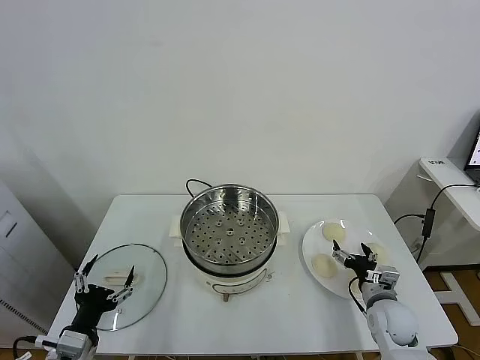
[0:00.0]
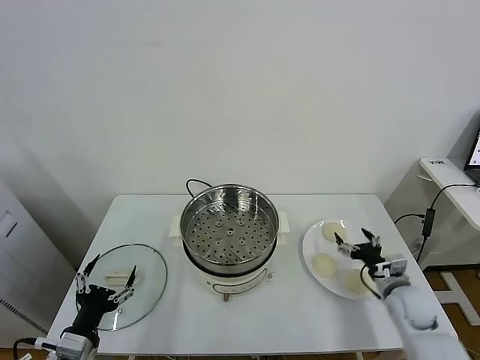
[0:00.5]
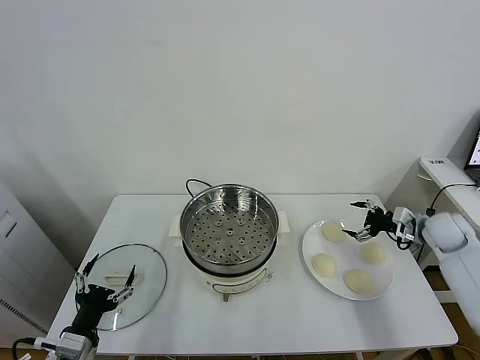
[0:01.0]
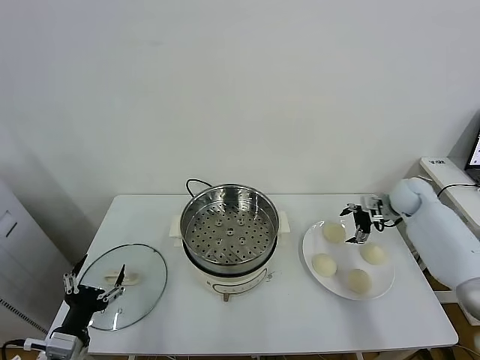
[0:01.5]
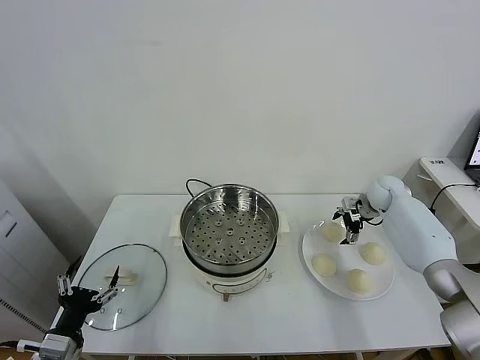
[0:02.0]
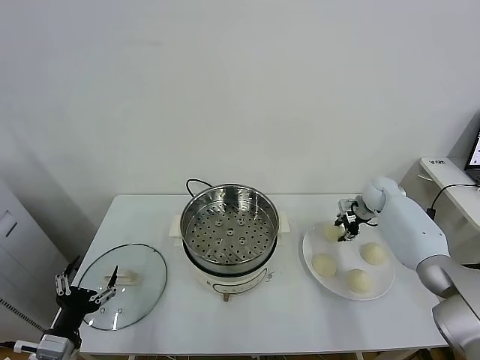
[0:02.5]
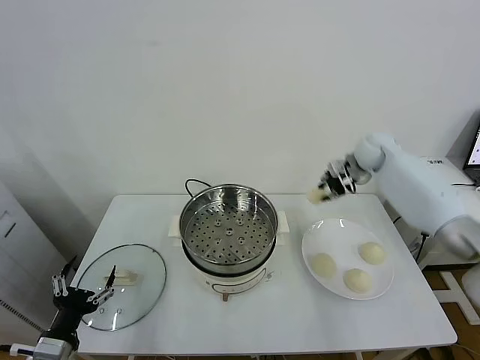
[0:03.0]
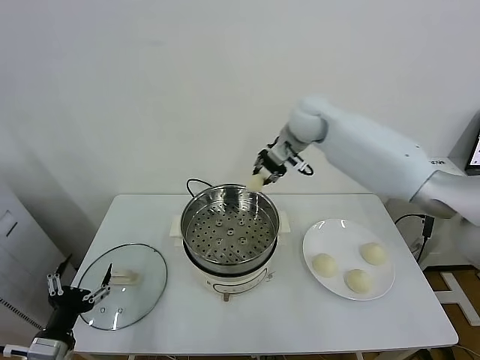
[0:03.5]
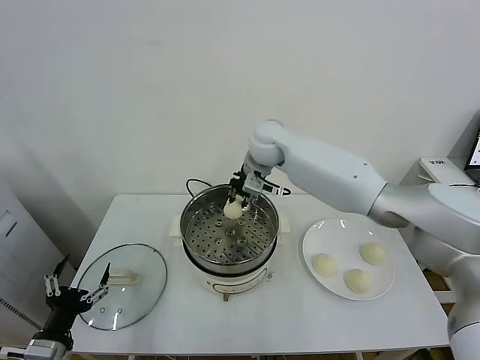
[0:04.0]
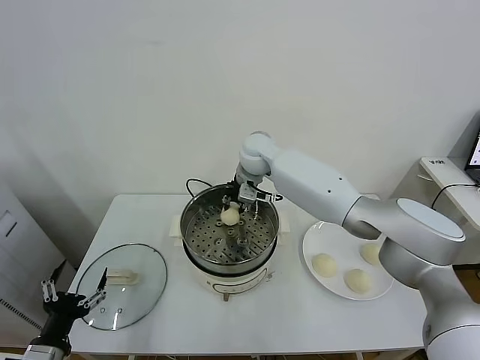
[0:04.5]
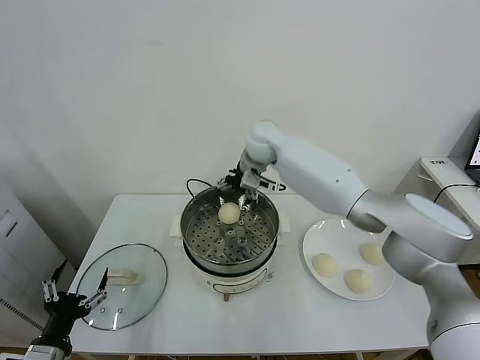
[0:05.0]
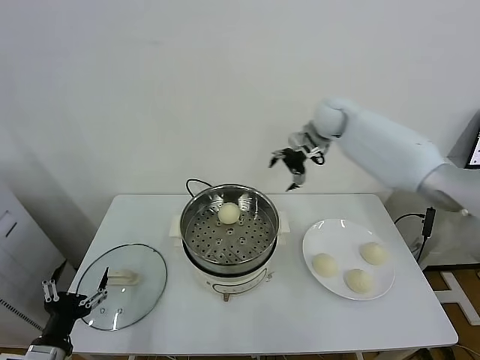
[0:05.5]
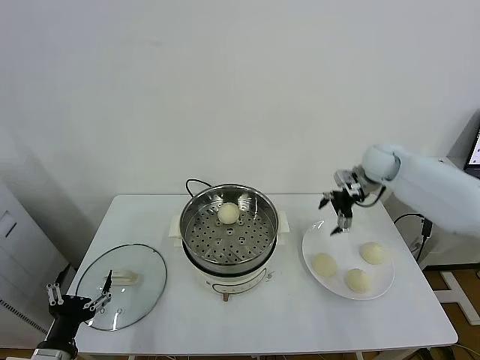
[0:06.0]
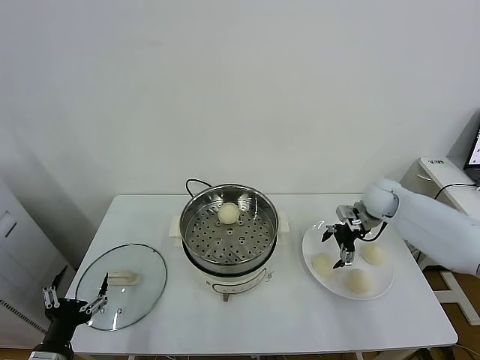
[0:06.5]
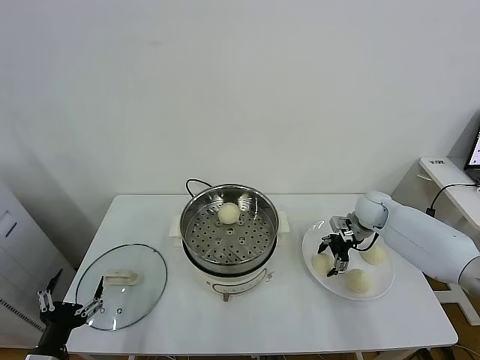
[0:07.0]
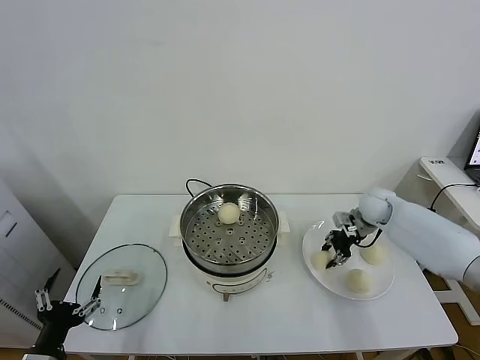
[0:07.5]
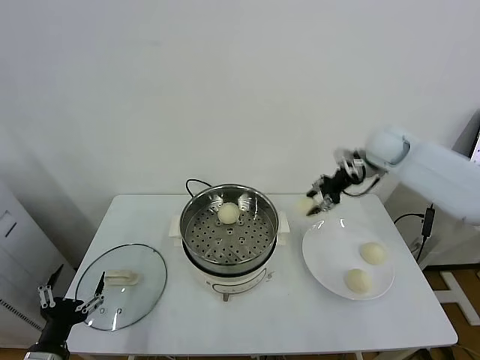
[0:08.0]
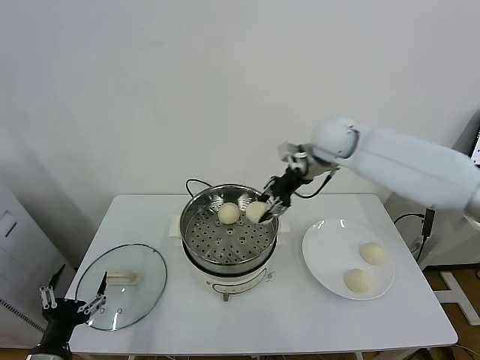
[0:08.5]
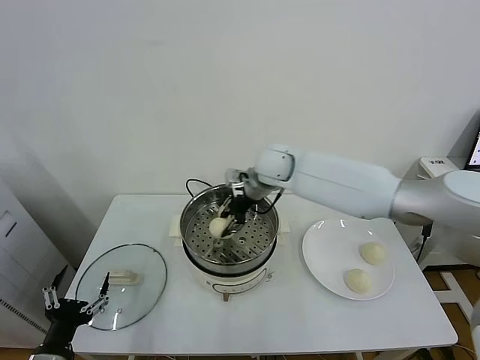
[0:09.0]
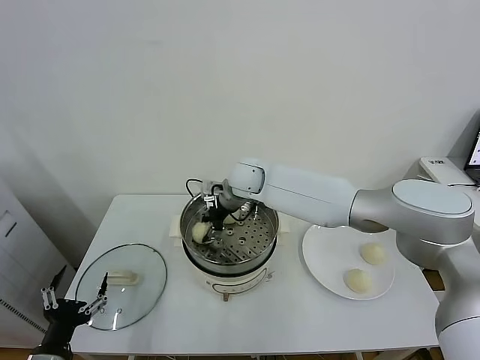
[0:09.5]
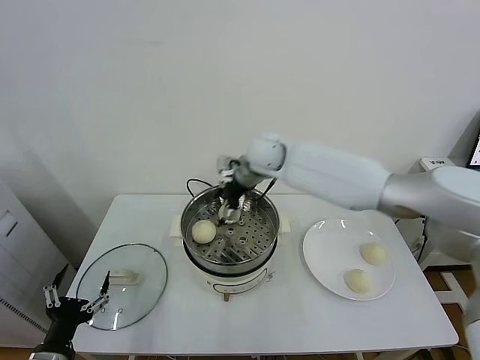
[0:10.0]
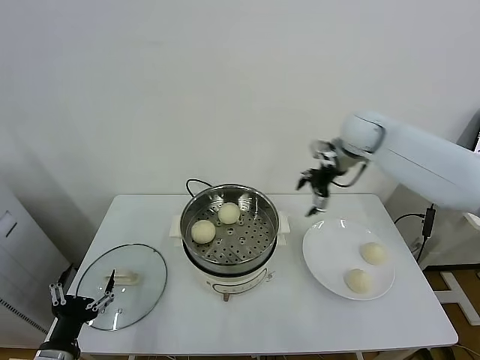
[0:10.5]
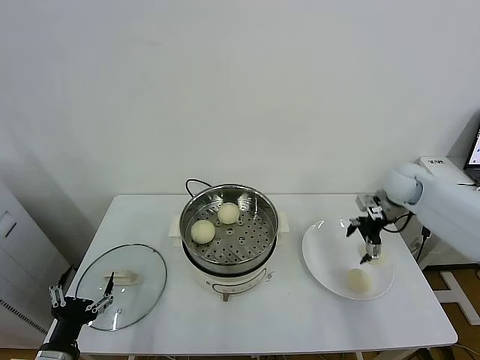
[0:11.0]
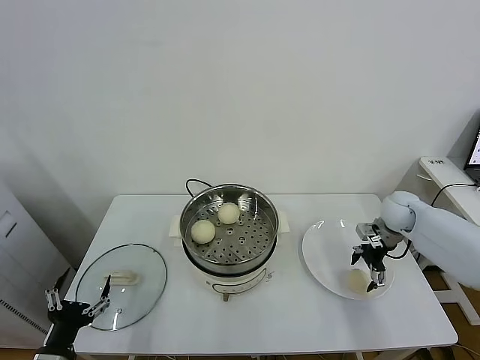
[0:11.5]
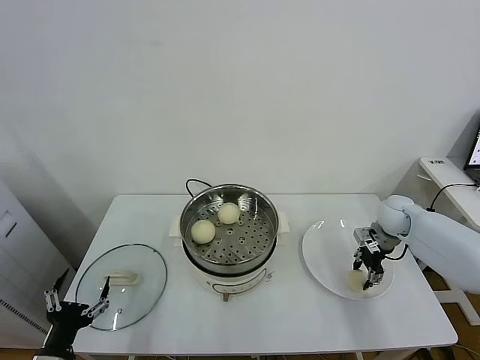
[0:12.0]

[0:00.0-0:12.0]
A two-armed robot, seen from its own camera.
Task of the whole recording: take steamed baozi put them in steamer.
Step, 0:00.0 to 0:02.0: Grasp the baozi in the plate with right gripper.
Step, 0:02.5 to 0:04.5: Place the baozi on the steamer with right gripper.
Step, 0:05.0 to 0:07.0: Grasp the baozi in the plate with right gripper.
Step, 0:07.5 to 0:09.5: Place the baozi on the steamer with right gripper.
Step, 0:10.0 to 0:11.5: Grasp the baozi in the plate with right gripper.
0:02.0 to 0:04.0: The right gripper travels to the left and upward by approximately 40 cm, and closes its fingers.
0:04.0 to 0:06.0: The right gripper moves to the right, some 30 cm, and opens.
0:06.0 to 0:08.0: The right gripper travels upward by roughly 10 cm, and closes up.
0:08.0 to 0:10.0: The right gripper shifts some 25 cm to the left, and opens its fingers.
0:10.0 to 0:12.0: The right gripper travels to the right and downward by about 35 cm, and closes its fingers.

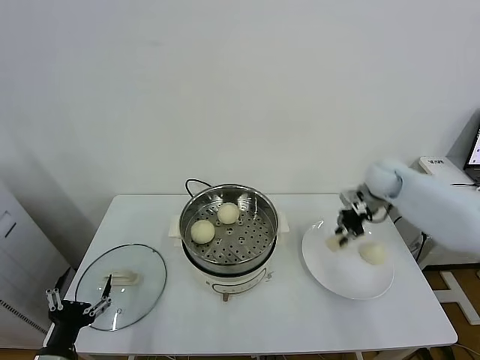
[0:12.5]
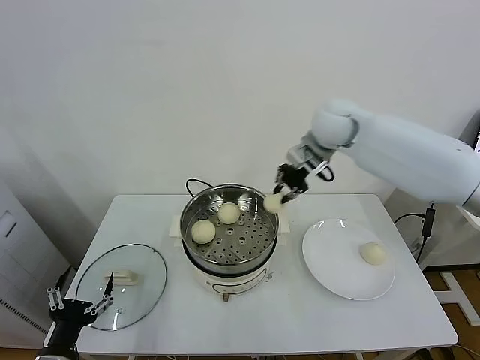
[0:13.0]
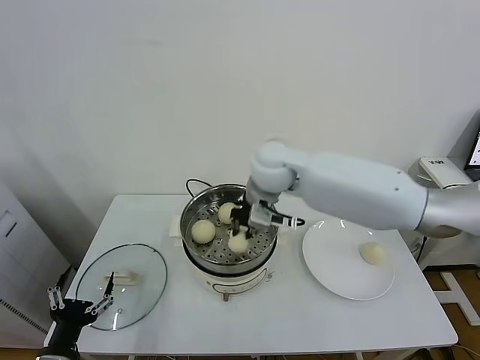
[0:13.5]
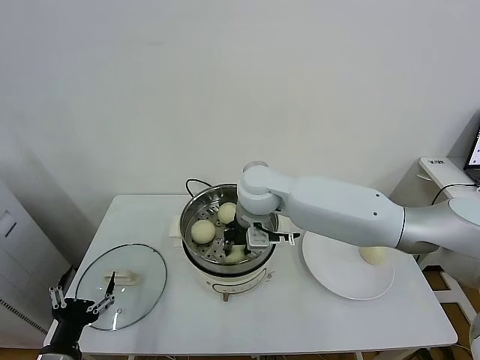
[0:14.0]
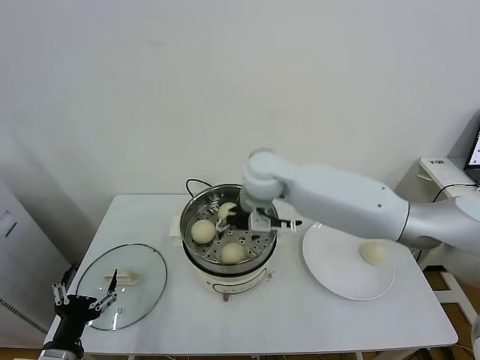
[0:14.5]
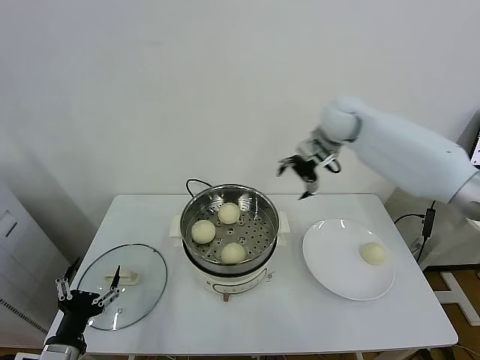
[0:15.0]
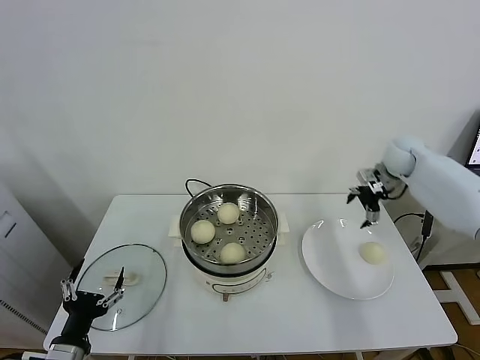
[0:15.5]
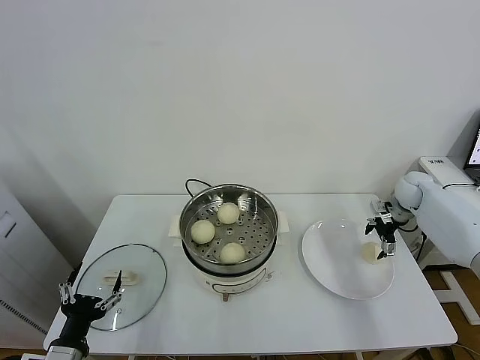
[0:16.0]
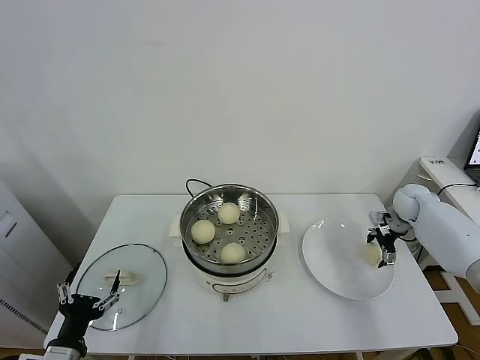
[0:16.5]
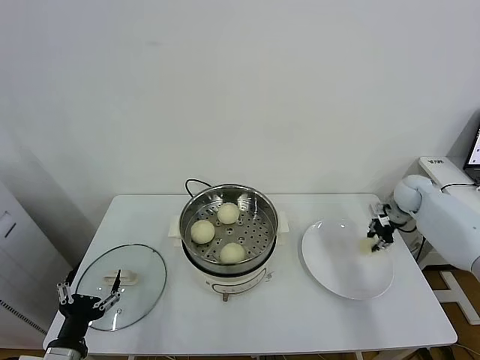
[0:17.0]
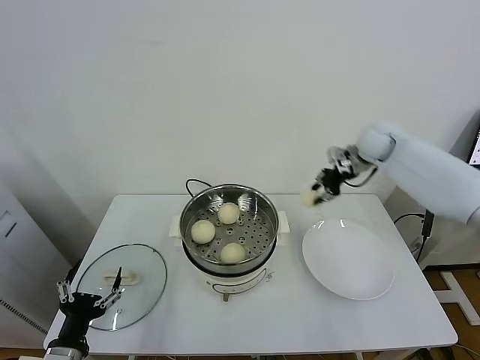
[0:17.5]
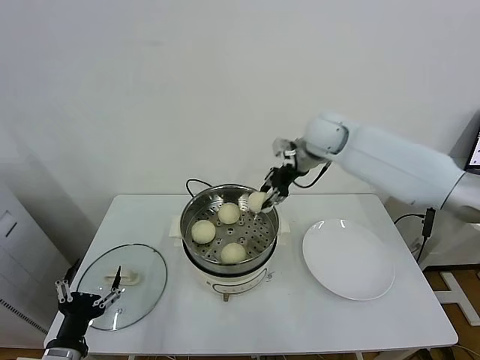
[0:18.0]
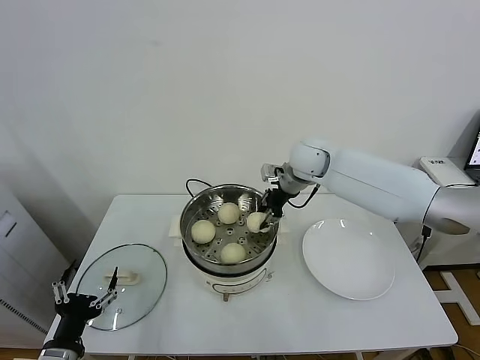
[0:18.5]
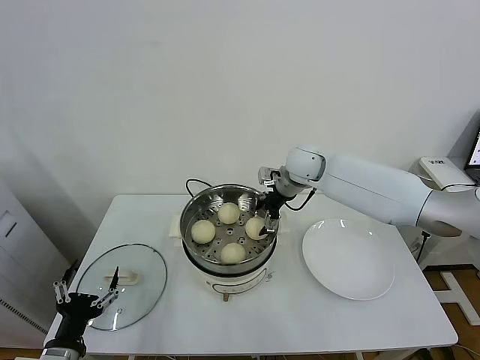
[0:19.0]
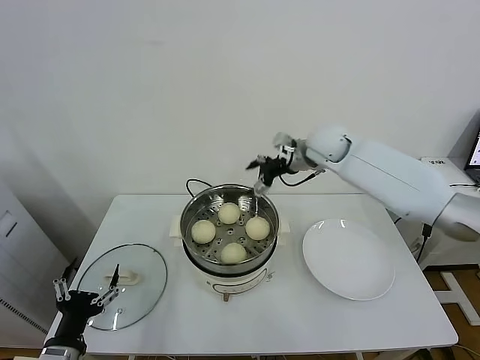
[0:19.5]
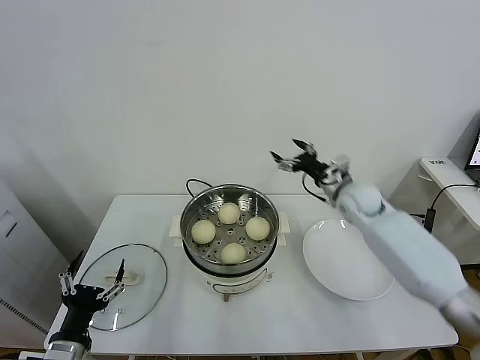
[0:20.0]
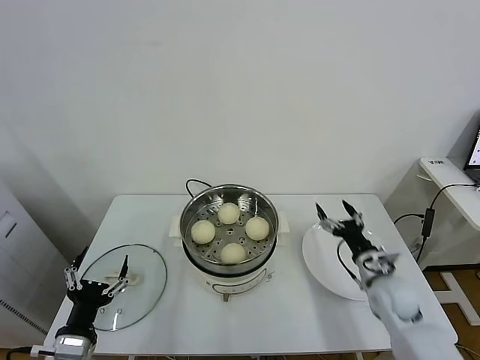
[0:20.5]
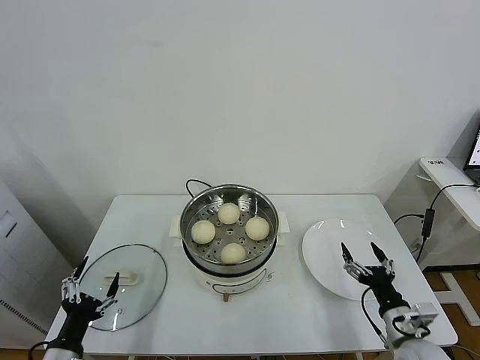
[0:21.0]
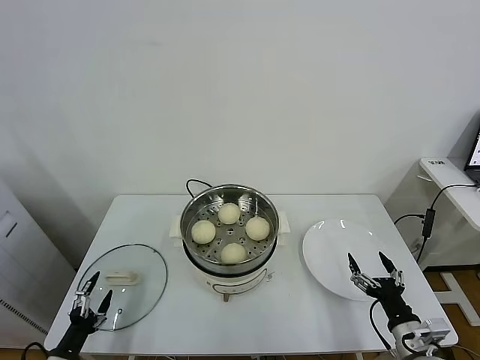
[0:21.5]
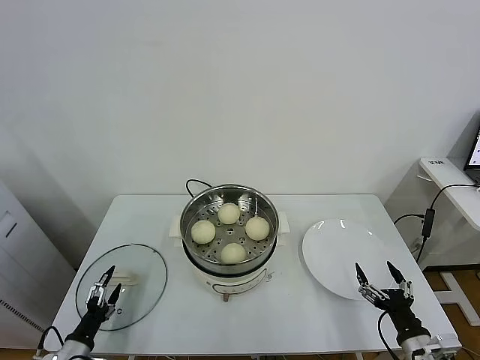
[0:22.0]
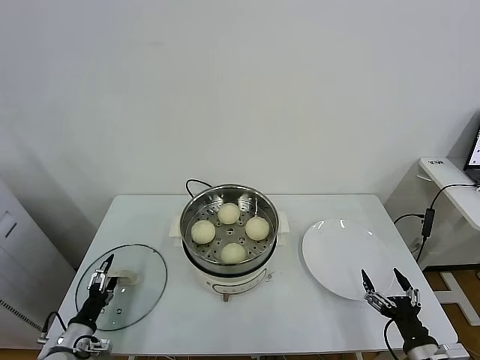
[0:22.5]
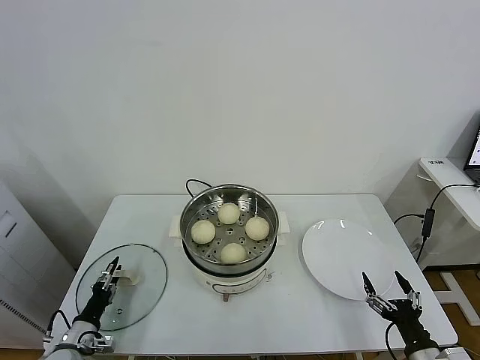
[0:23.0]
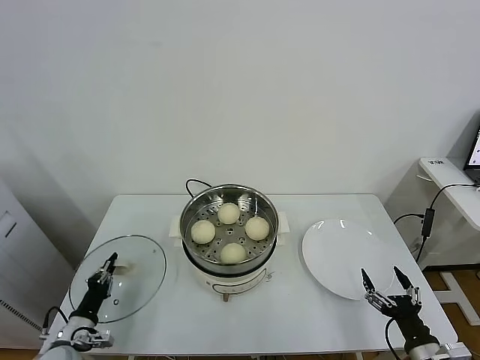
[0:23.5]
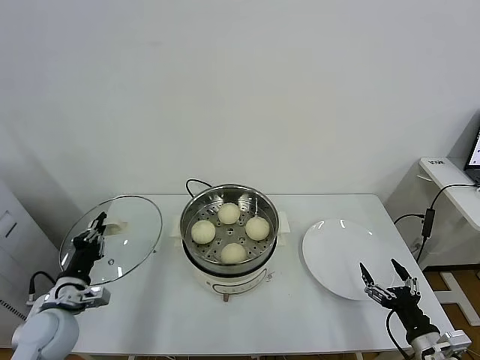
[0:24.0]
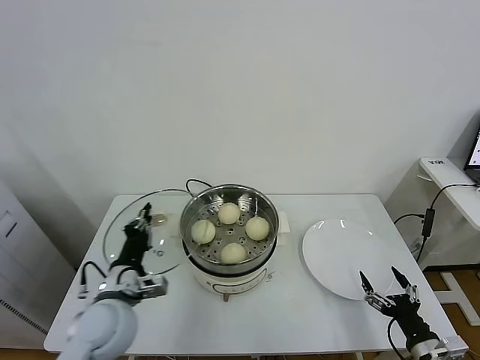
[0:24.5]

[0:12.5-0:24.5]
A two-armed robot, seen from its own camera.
Task of the whole recording: take steamed baozi put them in steamer.
Step, 0:12.5 to 0:14.0: Place the baozi on the steamer with right gripper.
Step, 0:15.0 to 0:16.5: Grasp the baozi in the plate with right gripper.
Step, 0:17.0 to 0:19.0: Place the baozi on the steamer with right gripper.
Step, 0:19.5 to 0:23.0: Grasp the pot lid with left gripper.
0:12.5 to 0:14.5: The right gripper is displaced to the left by about 30 cm, and opens up.
0:14.5 to 0:16.5: The right gripper travels to the right and downward by roughly 50 cm.
0:16.5 to 0:18.5: The right gripper is displaced to the left and upward by some 35 cm, and closes up.
0:18.5 to 0:20.5: The right gripper heads downward, backward and to the right, covering roughly 35 cm, and opens its fingers.
0:20.5 to 0:22.5: The left gripper moves downward, to the left and forward, roughly 20 cm; the right gripper heads backward, covering roughly 20 cm.
0:22.5 to 0:24.5: The left gripper is displaced upward and to the right by approximately 25 cm, and closes up.

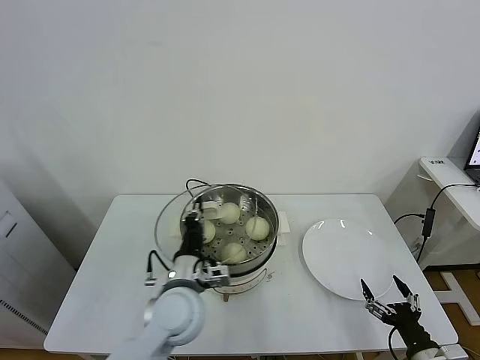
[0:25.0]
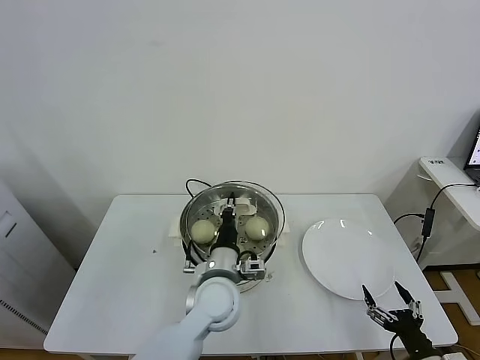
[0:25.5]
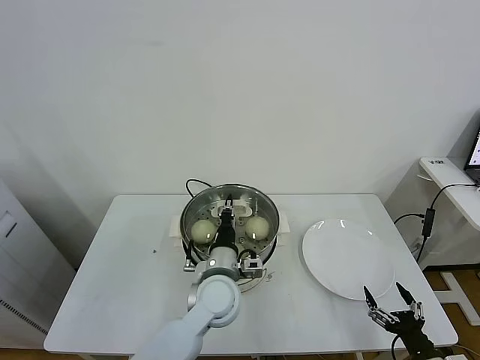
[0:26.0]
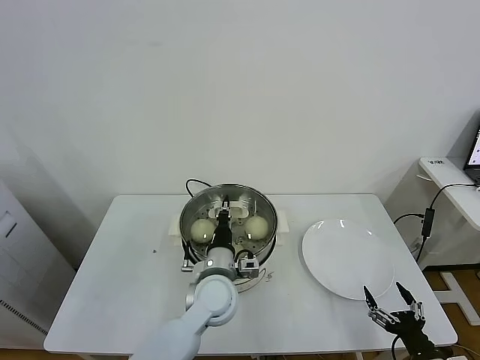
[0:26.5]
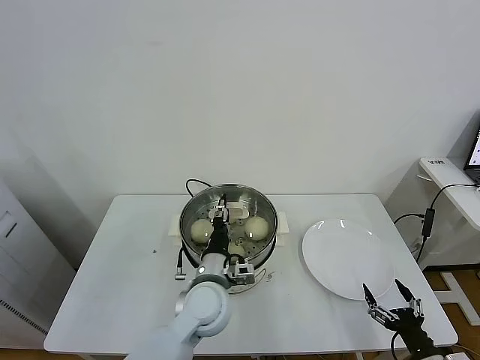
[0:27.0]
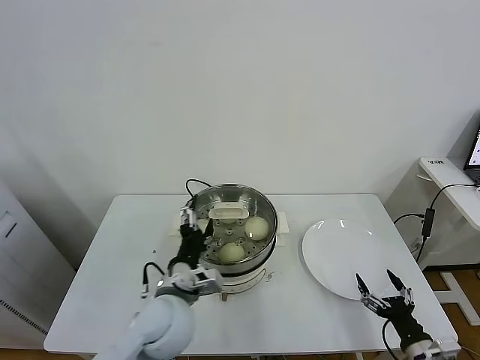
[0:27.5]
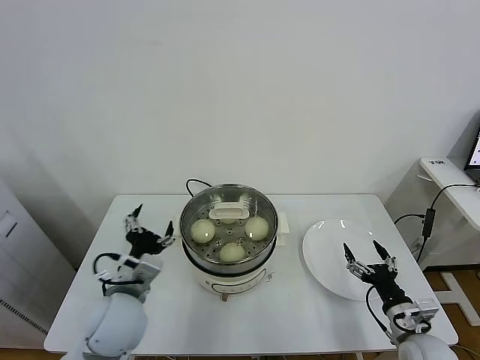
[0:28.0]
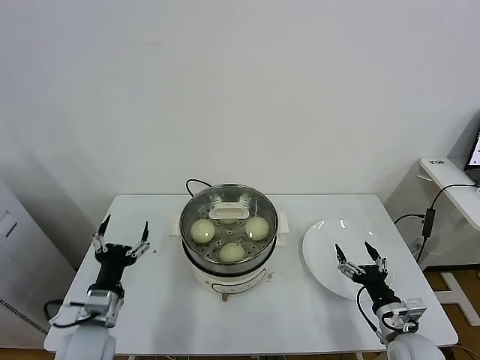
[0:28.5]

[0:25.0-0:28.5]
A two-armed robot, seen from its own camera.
Task of the whole recording: take steamed baozi put them in steamer.
Step, 0:25.0 to 0:27.0: Place the pot lid on the steamer with left gripper.
0:25.0 to 0:27.0: The left gripper goes approximately 5 cm to the right, and opens its fingers.
0:27.0 to 0:28.5: The right gripper heads forward, covering approximately 10 cm. The left gripper shifts about 20 cm to the left, and opens.
